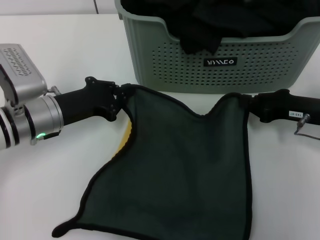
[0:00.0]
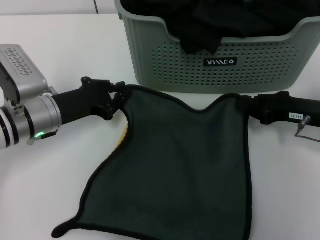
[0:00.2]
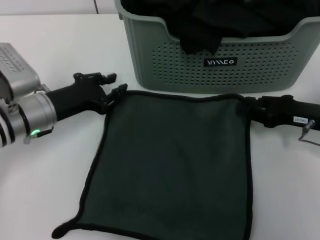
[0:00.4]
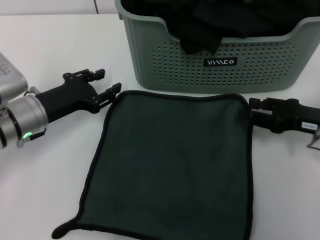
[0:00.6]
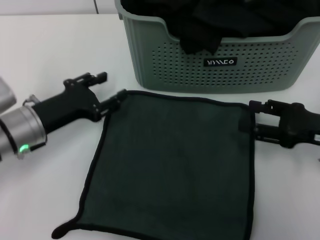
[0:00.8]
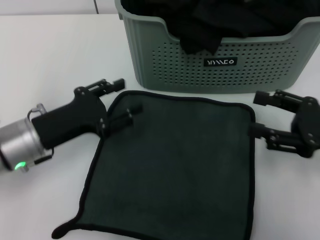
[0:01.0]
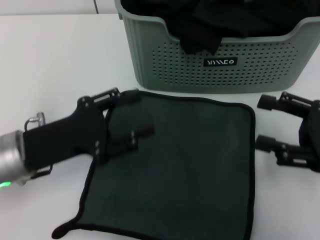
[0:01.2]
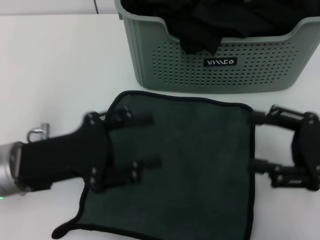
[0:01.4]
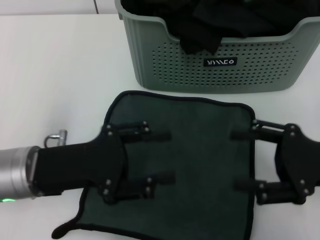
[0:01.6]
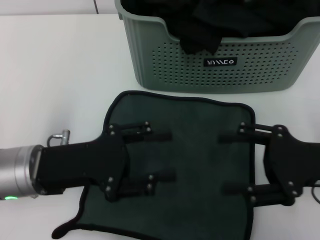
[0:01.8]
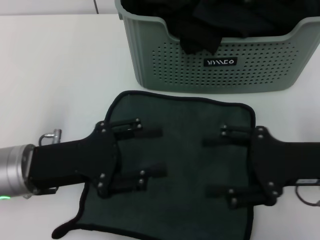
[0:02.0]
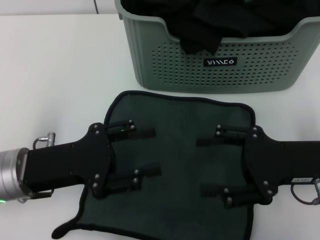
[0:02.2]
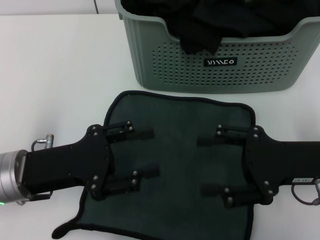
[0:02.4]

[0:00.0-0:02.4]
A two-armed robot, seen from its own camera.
Task of the whole recording: pick up the towel from the storage box and lay it flat on the table.
0:00.0 to 0:01.2: Both grippers move backward, about 10 cm. The left gripper opens up. Meanwhile the right gripper opens.
0:01.2 to 0:02.4: The right gripper heads to the left, covering some 5 cm.

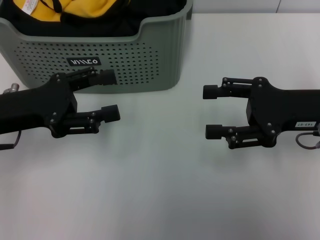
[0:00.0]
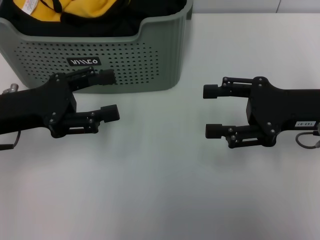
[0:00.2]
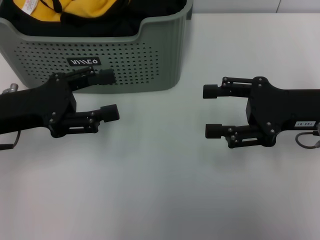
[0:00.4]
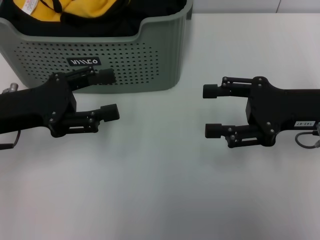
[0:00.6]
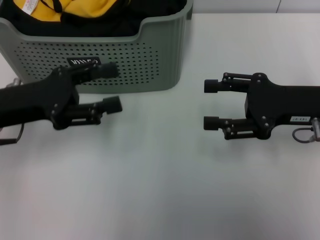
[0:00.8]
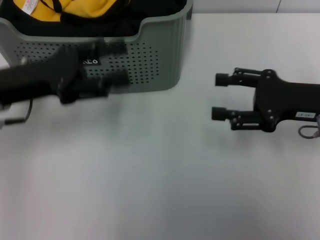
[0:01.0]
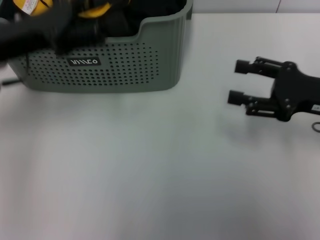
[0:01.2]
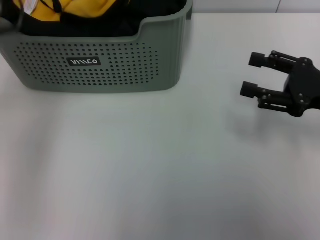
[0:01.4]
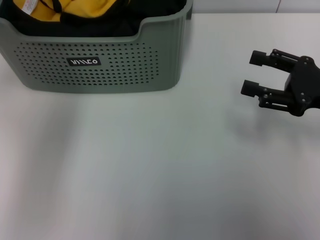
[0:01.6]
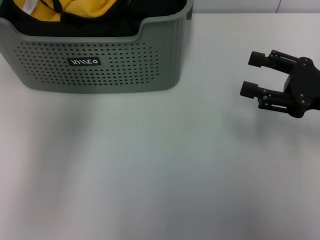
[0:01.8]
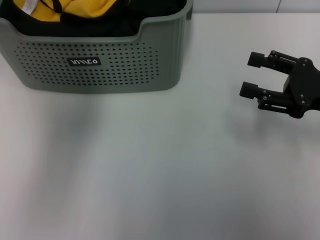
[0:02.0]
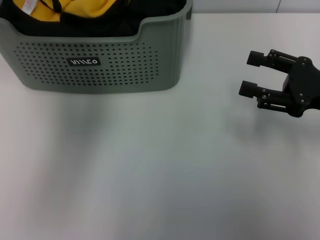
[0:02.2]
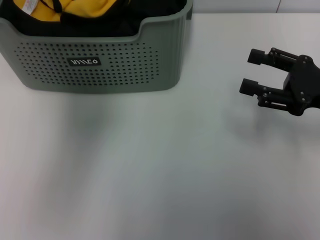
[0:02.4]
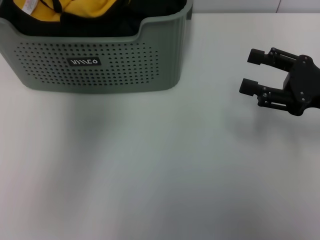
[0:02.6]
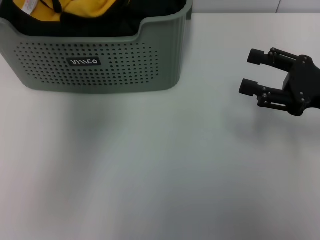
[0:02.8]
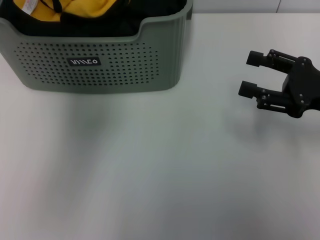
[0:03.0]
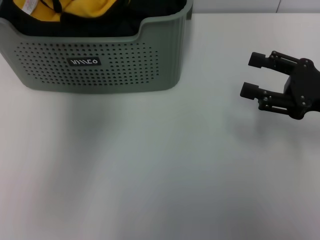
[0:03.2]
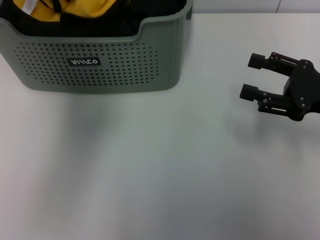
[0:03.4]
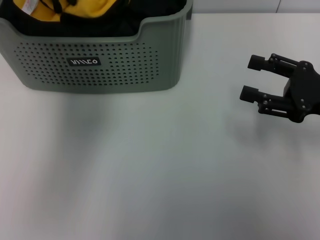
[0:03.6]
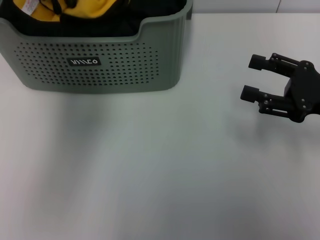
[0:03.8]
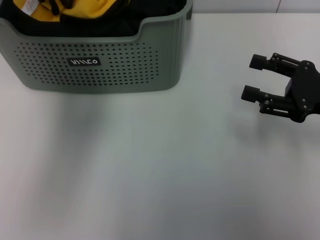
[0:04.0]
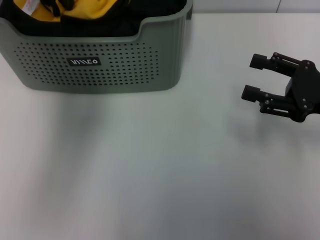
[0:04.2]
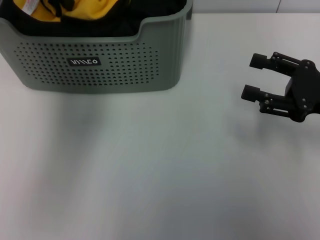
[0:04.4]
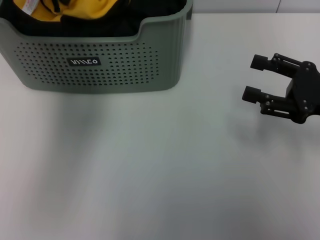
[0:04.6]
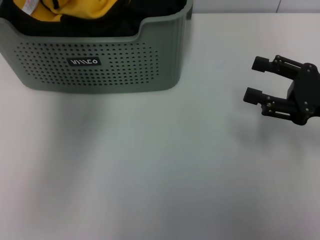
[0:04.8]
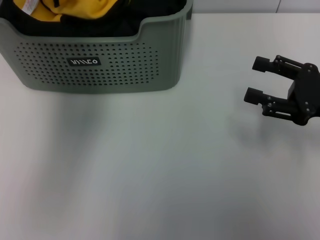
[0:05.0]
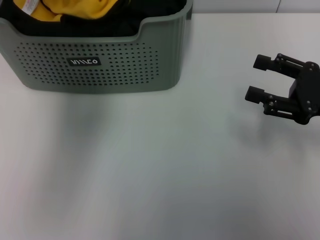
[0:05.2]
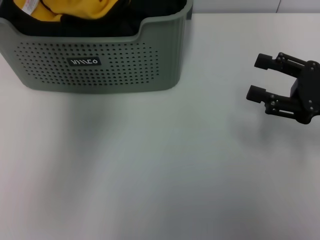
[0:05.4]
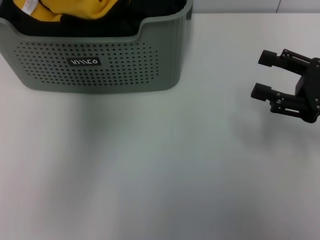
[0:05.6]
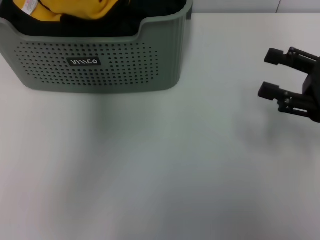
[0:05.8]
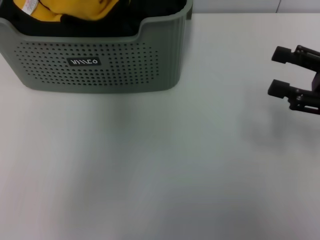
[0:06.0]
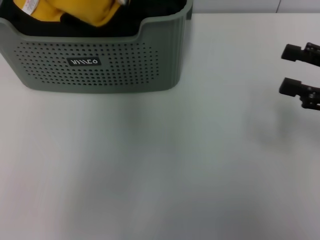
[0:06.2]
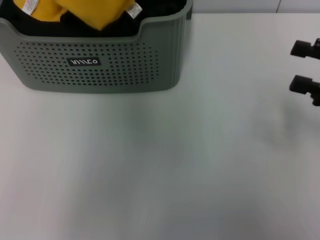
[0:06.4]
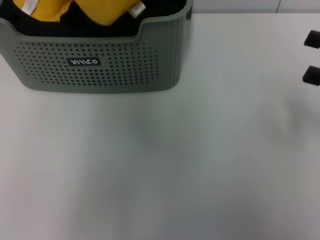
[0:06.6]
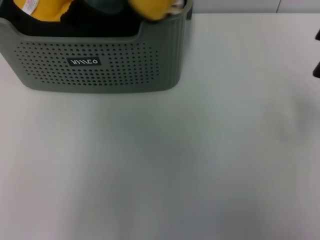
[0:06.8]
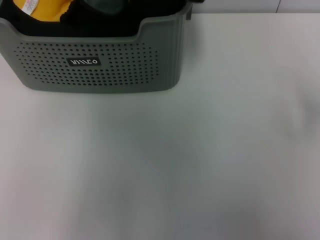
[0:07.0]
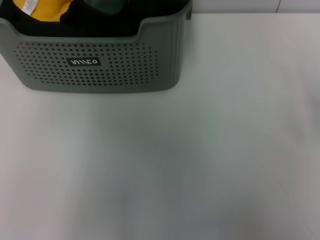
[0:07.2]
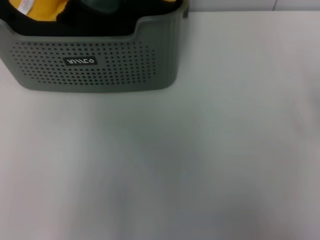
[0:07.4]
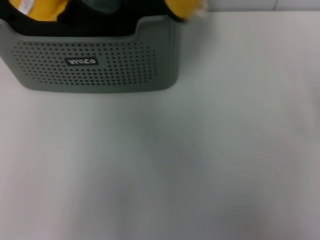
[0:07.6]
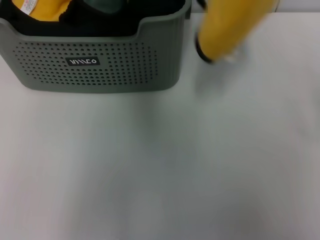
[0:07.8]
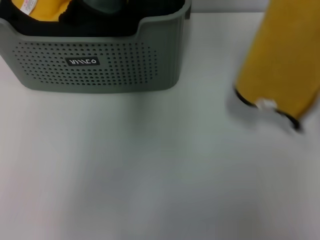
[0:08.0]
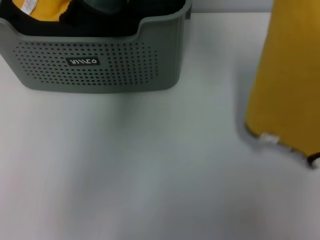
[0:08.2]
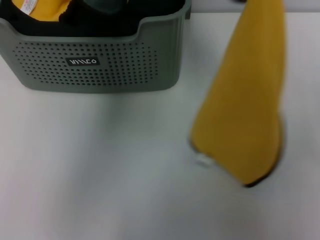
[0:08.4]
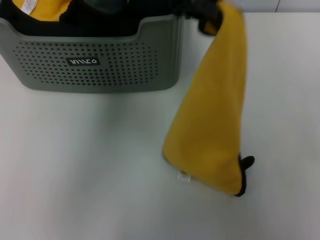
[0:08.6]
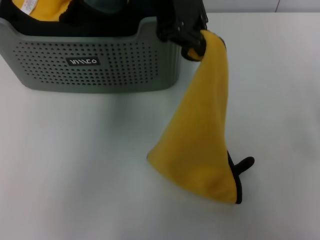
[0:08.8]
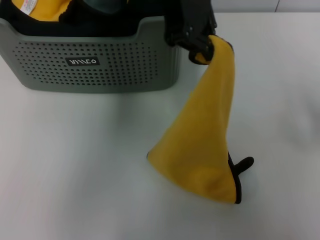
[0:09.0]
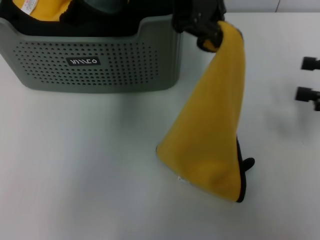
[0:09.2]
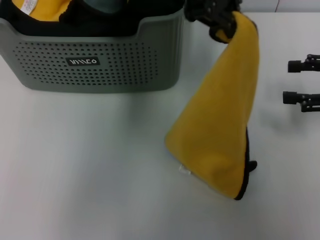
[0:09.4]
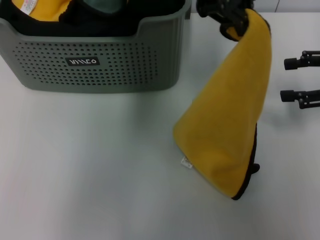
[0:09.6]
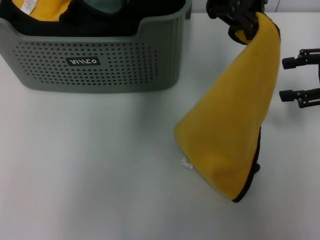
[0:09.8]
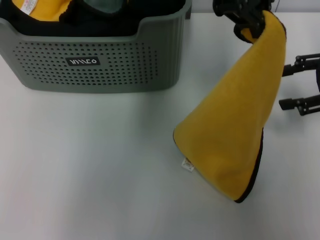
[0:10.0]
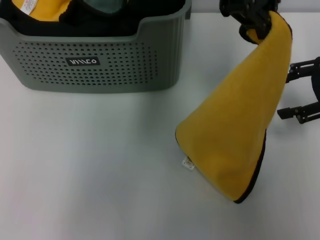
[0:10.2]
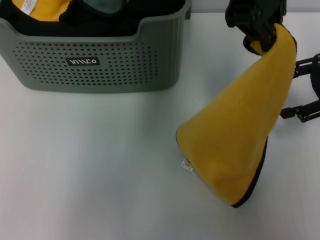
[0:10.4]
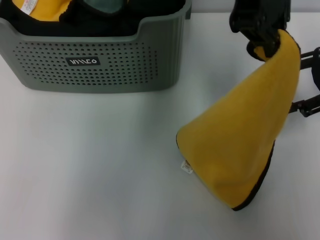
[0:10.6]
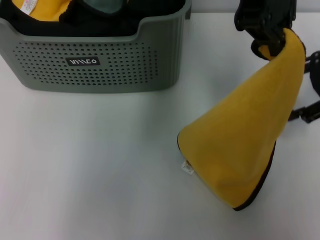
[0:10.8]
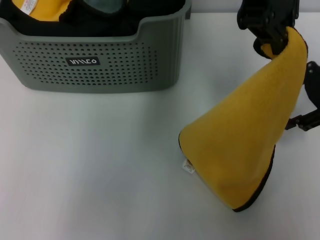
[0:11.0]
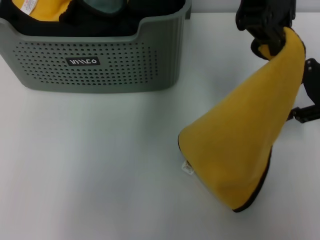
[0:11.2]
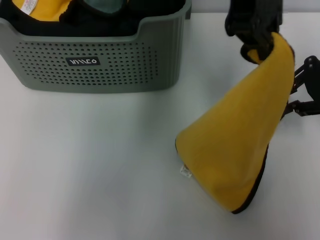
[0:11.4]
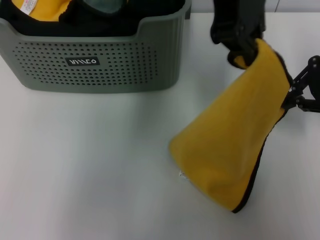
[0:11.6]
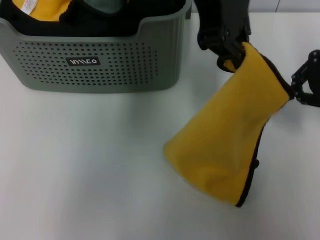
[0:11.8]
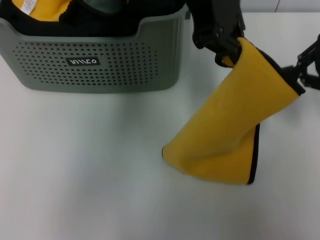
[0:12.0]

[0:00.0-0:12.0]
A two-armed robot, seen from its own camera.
Task of the whole recording: pick up the towel from the storage box and lay it flat on the table.
Step, 0:00.0 to 0:04.4: Pick up a towel with the left gripper.
Step, 0:04.6 to 0:11.6: Spread the towel flat with the left gripper.
0:00.0 to 0:01.6: The left gripper goes some 20 cm upward and forward. The right gripper changes place by roughly 5 cm.
0:01.6 to 0:03.0: The left gripper moves forward, some 5 cm.
0:03.0 to 0:04.4: The grippers make only small movements.
0:04.4 to 0:06.0: The left gripper heads upward and to the right, covering approximately 15 cm, and closes its fingers.
0:06.0 to 0:07.6: The right gripper heads to the right, covering some 5 cm, while the left gripper moves upward, backward and to the right, roughly 15 cm.
0:07.6 to 0:09.0: The left gripper goes about 15 cm downward.
0:09.0 to 0:10.4: The left gripper goes some 10 cm to the right and upward. The right gripper is displaced forward and to the left by approximately 10 cm.
0:10.4 to 0:12.0: The right gripper closes its fingers. The left gripper shifts some 5 cm to the left.

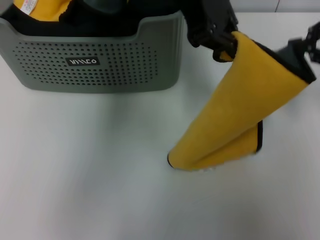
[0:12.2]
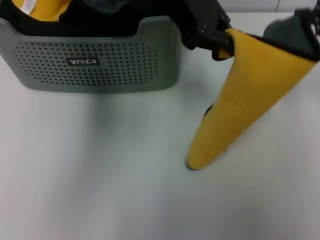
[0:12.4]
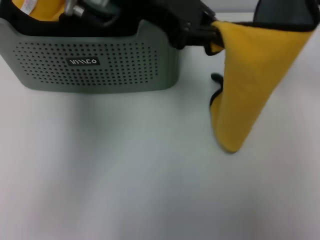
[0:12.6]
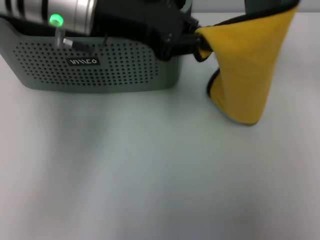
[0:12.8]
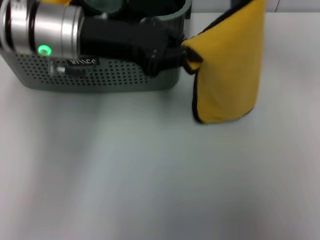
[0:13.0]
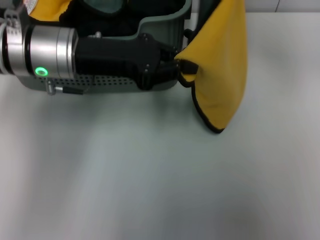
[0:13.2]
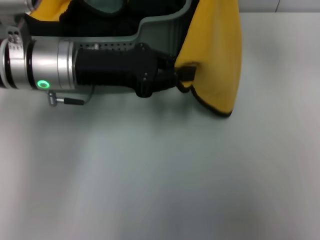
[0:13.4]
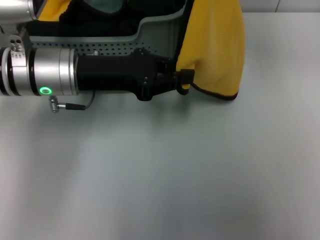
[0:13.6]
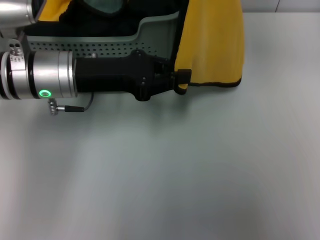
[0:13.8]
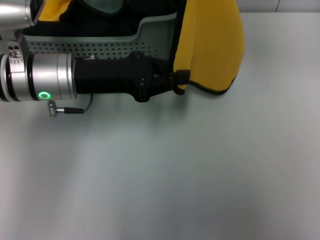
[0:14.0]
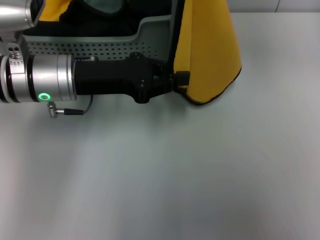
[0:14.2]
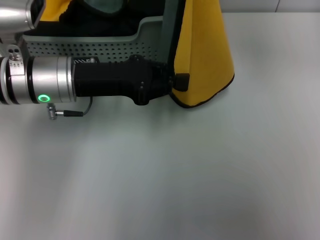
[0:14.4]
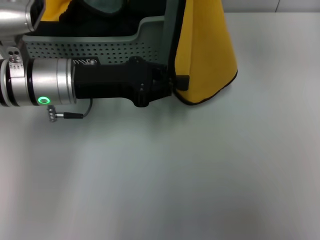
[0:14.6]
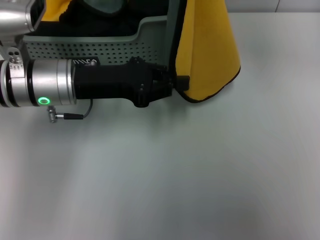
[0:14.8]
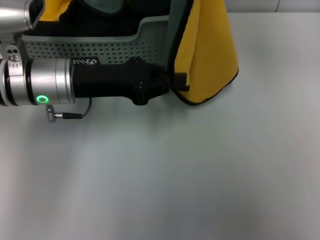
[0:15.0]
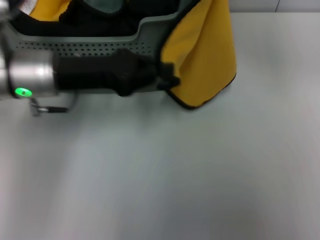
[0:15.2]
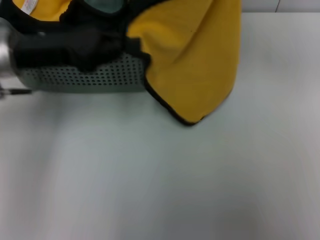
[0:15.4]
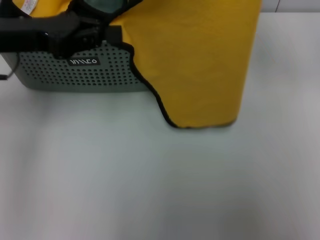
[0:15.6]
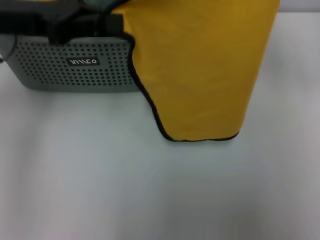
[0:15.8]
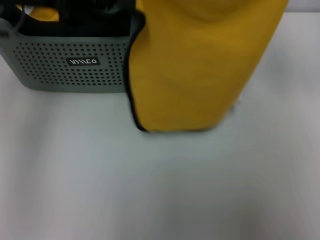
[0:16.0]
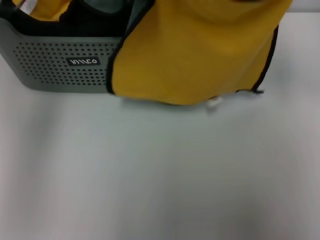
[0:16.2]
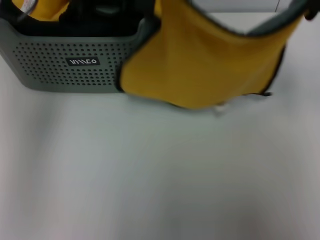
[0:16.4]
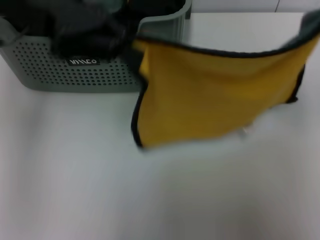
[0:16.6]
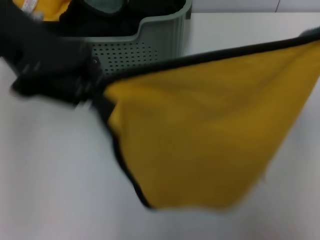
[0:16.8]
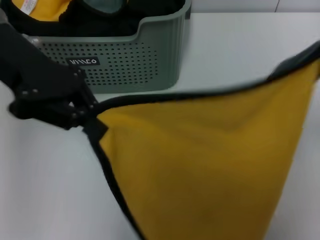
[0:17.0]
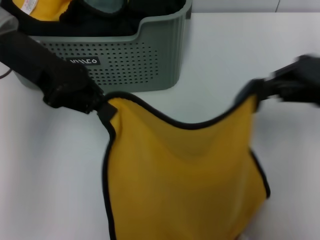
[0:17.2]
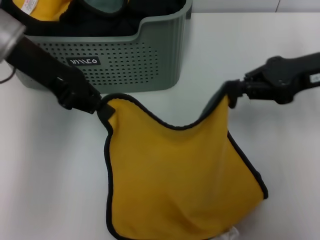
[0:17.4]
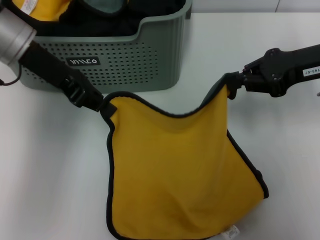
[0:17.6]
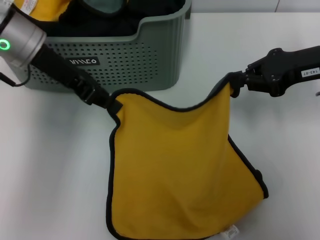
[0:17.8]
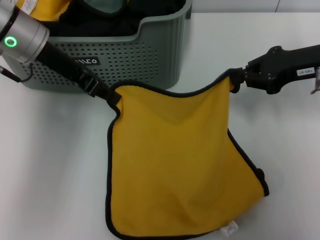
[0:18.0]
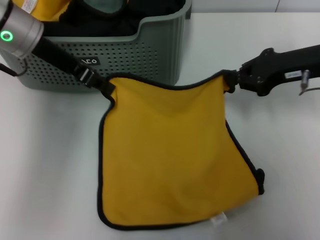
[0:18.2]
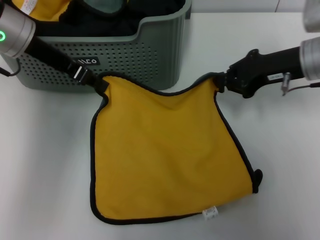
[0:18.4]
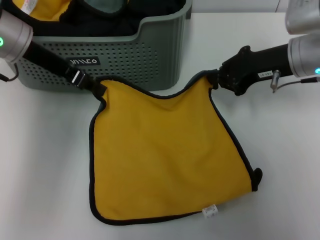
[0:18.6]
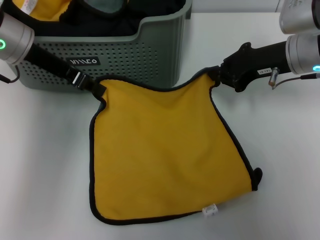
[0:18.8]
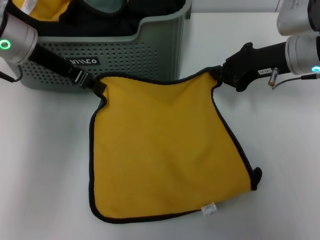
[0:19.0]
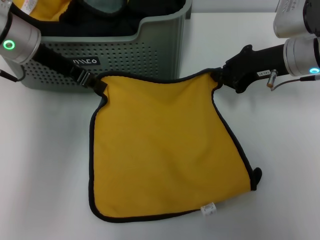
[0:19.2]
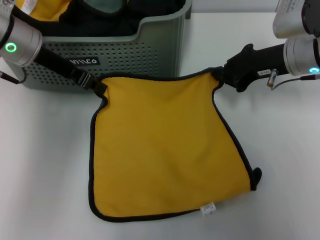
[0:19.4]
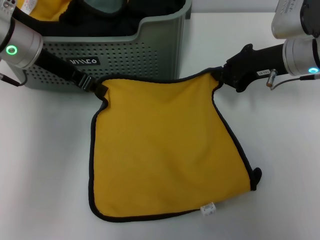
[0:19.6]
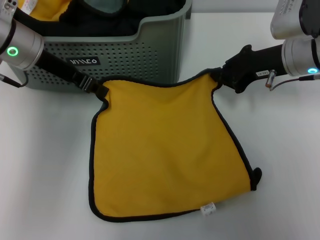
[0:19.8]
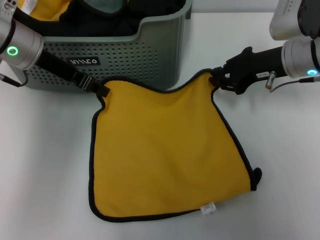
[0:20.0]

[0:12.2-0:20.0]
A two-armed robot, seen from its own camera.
Task of the whole recording: pick up the towel from the storage box and lay it flat on the table.
0:12.2 to 0:13.8: The right gripper is displaced to the left and upward by some 15 cm; the left gripper shifts approximately 25 cm downward and to the left.
0:13.8 to 0:15.4: The right gripper shifts roughly 5 cm to the right, while the left gripper shifts approximately 5 cm to the left.
0:15.4 to 0:16.8: The left gripper heads upward, covering some 10 cm; the right gripper is displaced to the right, backward and downward by about 15 cm.
0:16.8 to 0:18.4: The right gripper goes about 20 cm downward, to the left and forward; the left gripper is displaced downward by some 10 cm.
0:18.4 to 0:20.0: There are only small adjustments of the grippers.
